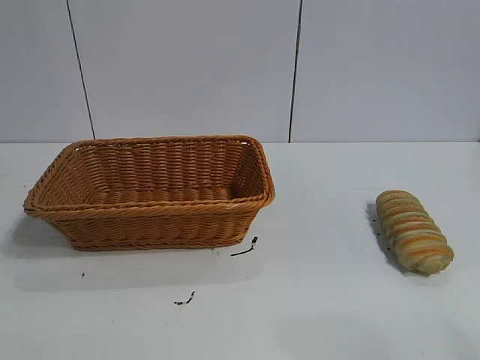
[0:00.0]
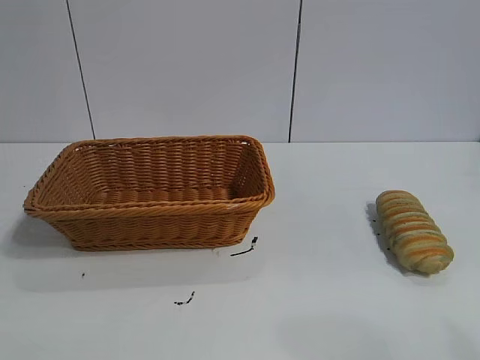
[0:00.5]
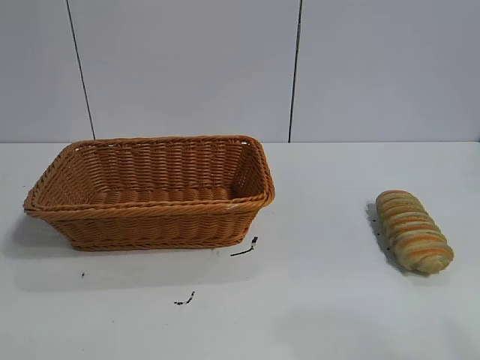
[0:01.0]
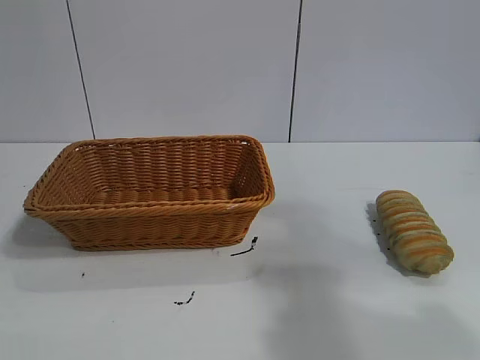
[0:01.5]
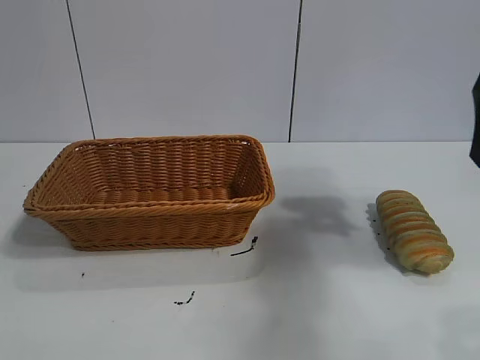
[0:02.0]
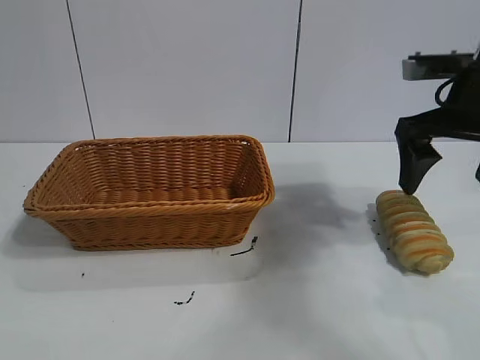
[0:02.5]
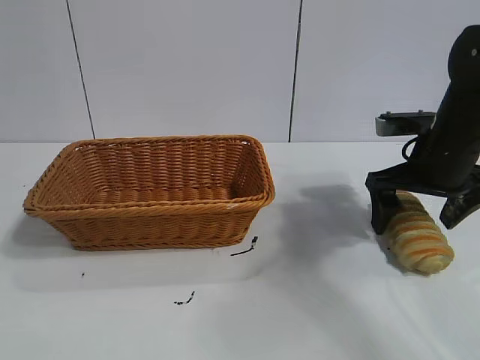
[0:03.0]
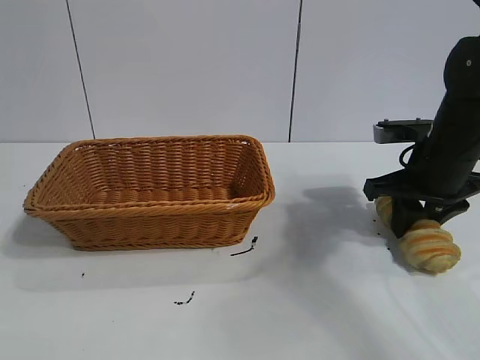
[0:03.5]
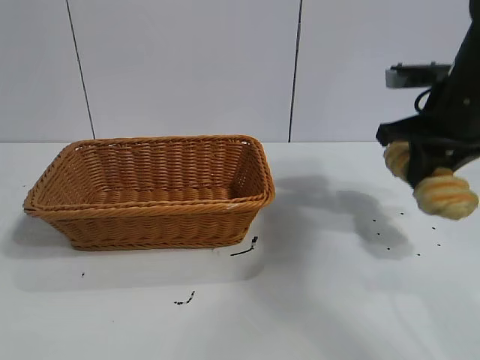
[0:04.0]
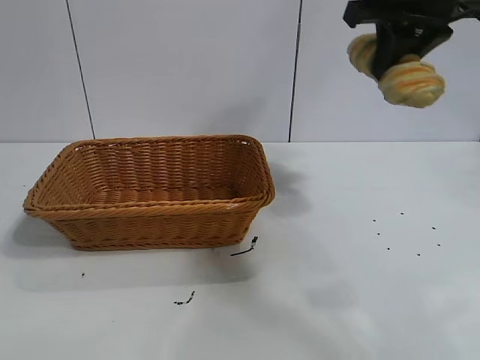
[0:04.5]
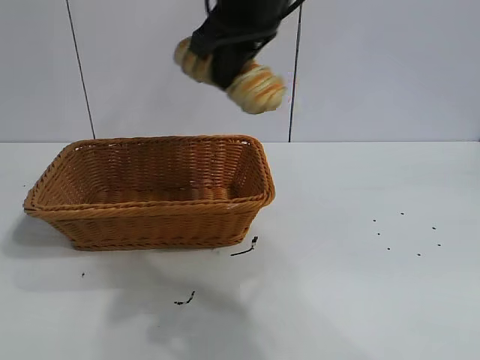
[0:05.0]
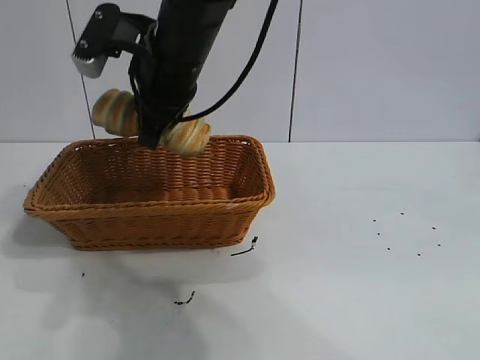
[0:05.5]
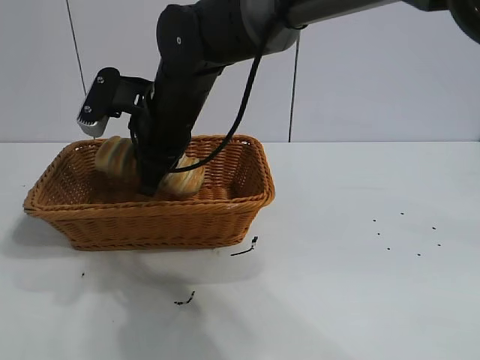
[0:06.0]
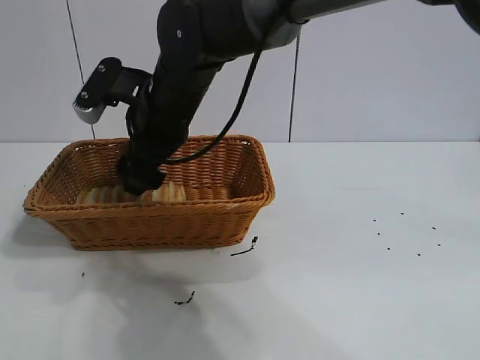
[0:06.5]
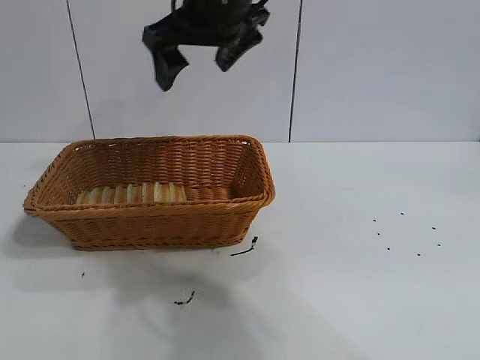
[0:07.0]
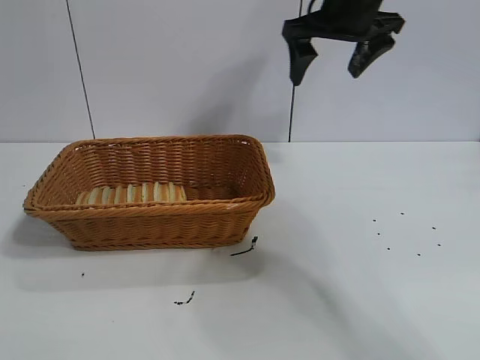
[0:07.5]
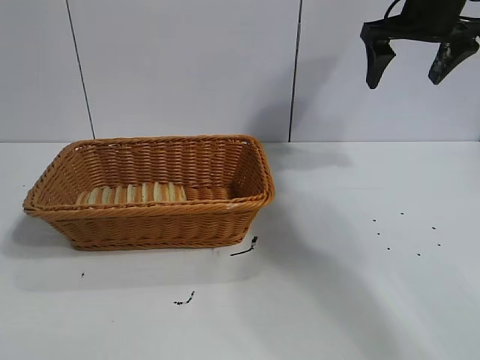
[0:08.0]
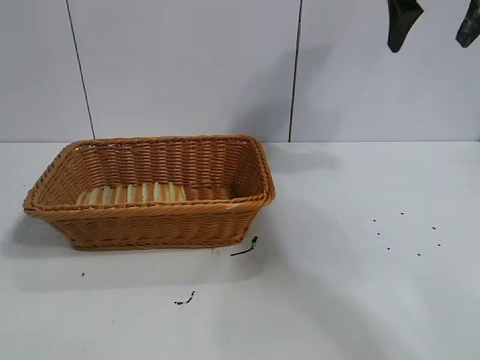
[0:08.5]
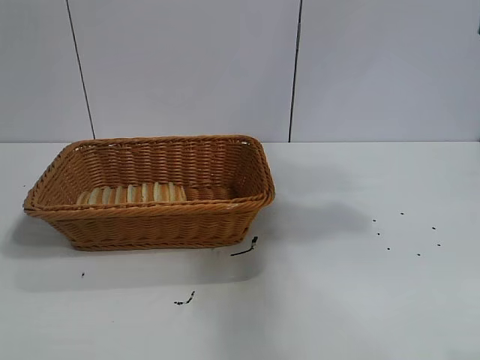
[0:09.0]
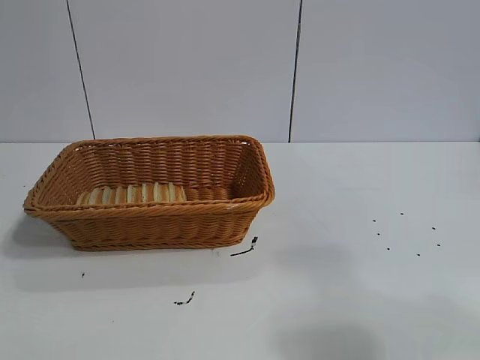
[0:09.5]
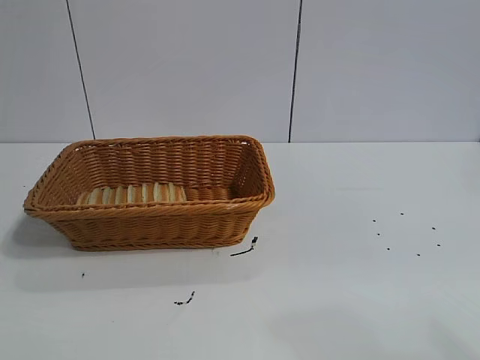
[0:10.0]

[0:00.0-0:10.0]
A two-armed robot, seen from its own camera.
Task of the whole recording: pick up the long bread and put it into the basket.
Step, 0:02.0 to 0:03.5: Grasp the long bread with right gripper.
Step, 0:04.0 to 0:06.5: Place the long bread in the basket with right gripper.

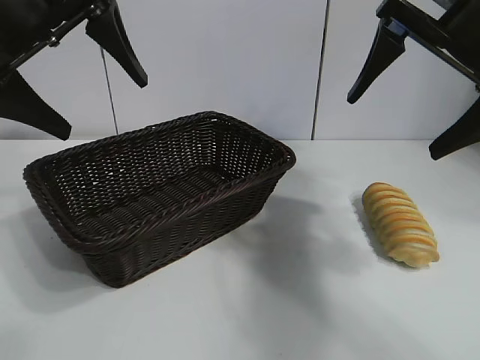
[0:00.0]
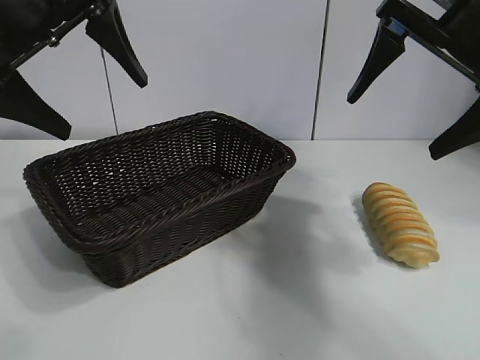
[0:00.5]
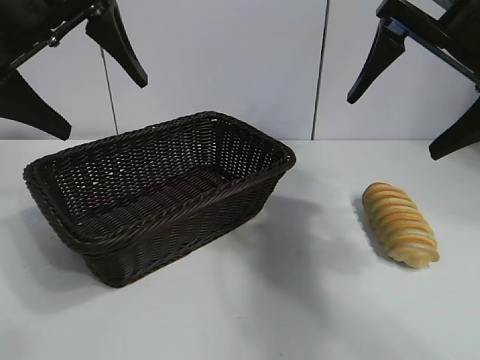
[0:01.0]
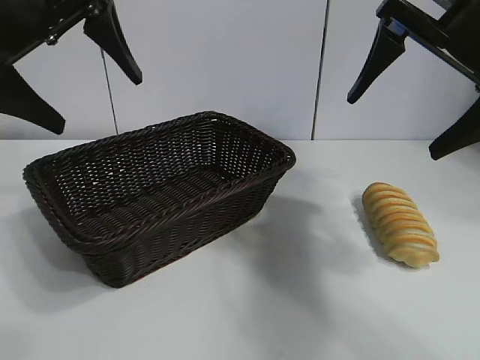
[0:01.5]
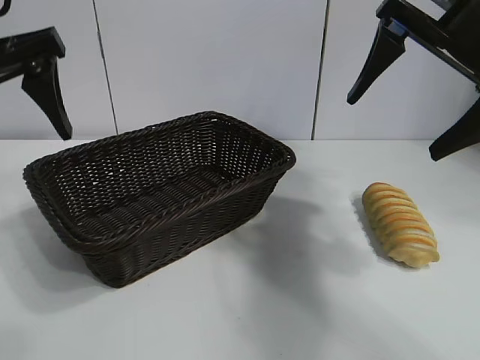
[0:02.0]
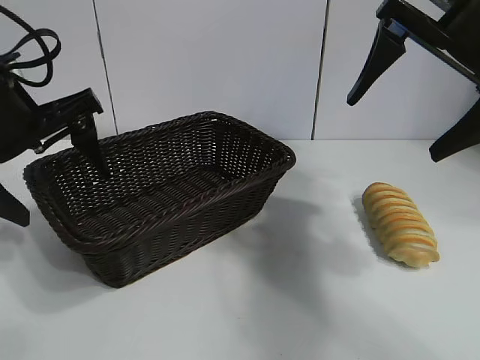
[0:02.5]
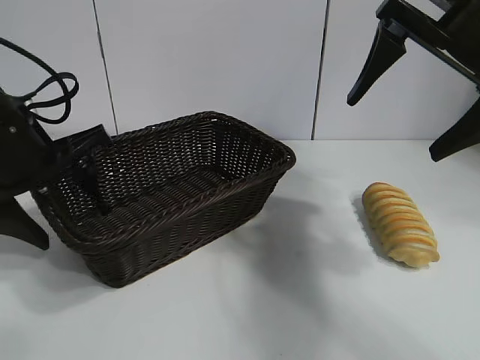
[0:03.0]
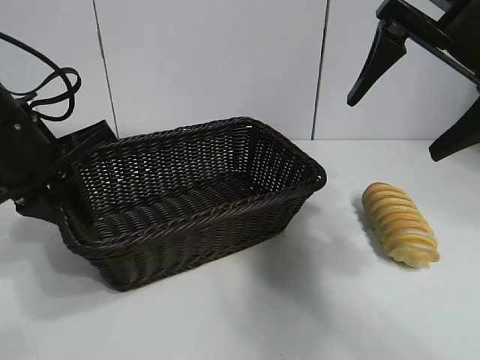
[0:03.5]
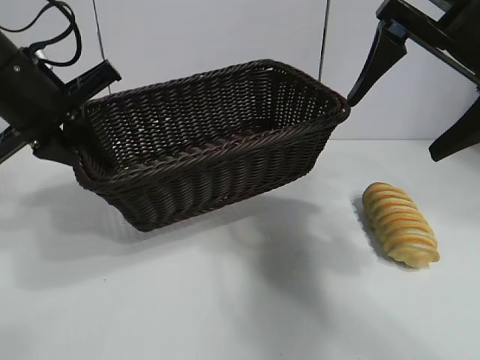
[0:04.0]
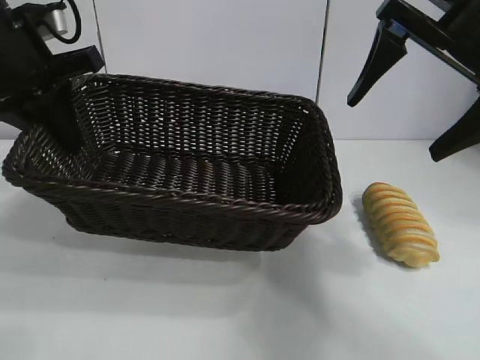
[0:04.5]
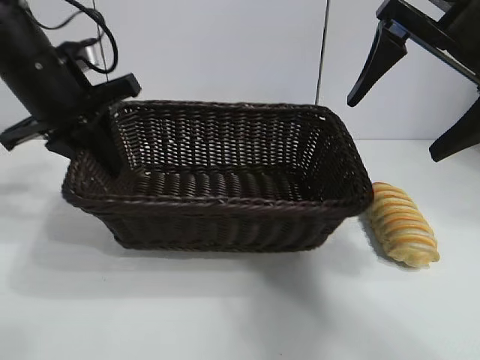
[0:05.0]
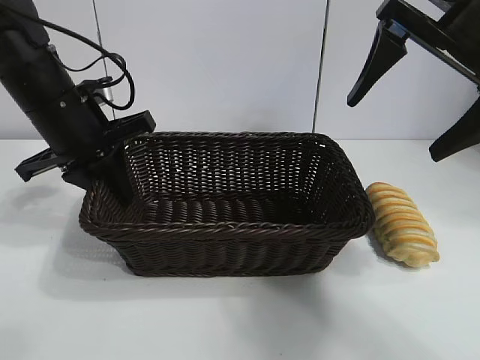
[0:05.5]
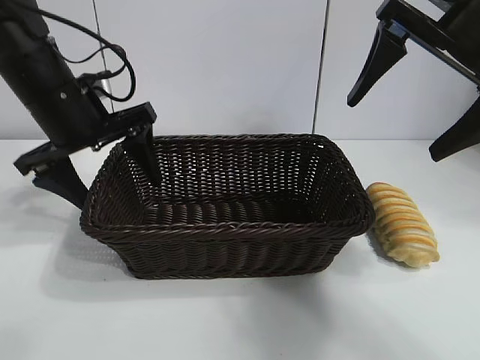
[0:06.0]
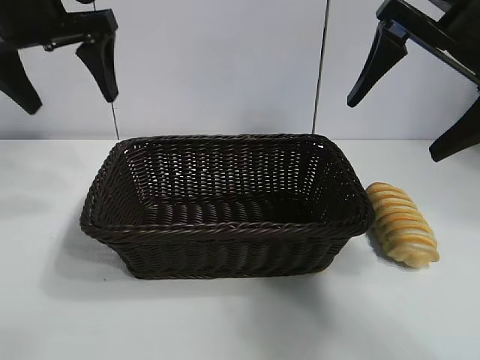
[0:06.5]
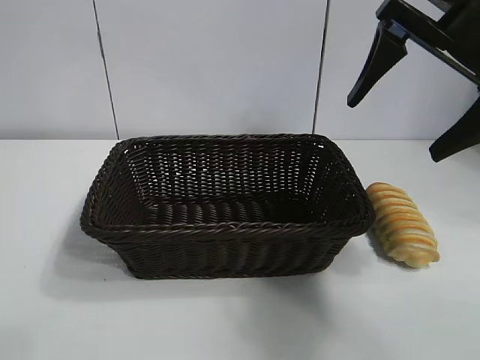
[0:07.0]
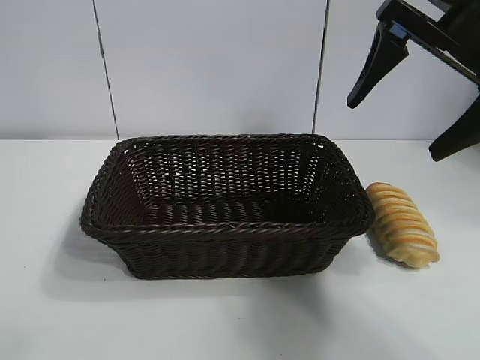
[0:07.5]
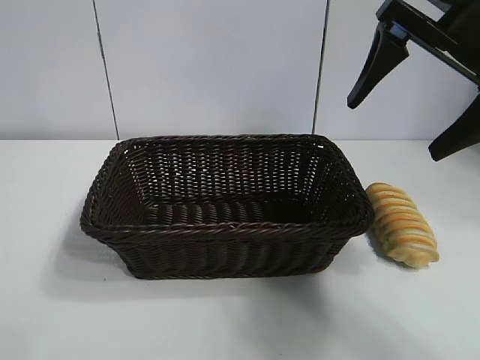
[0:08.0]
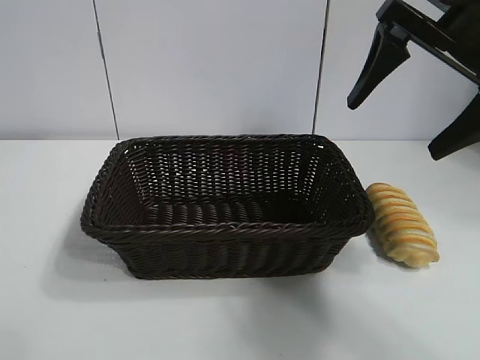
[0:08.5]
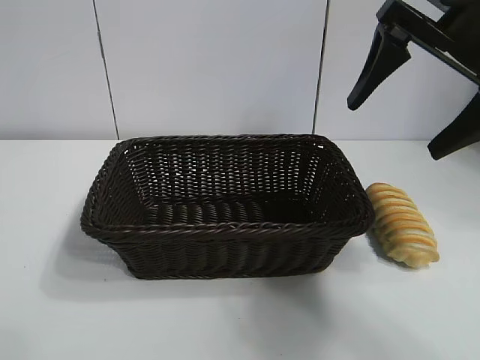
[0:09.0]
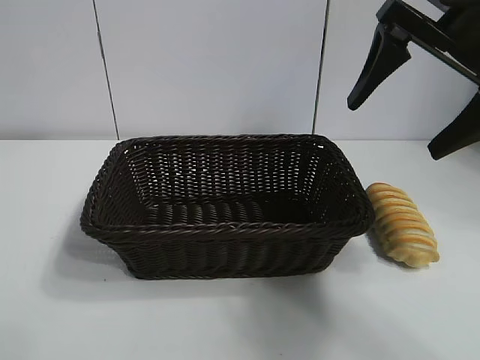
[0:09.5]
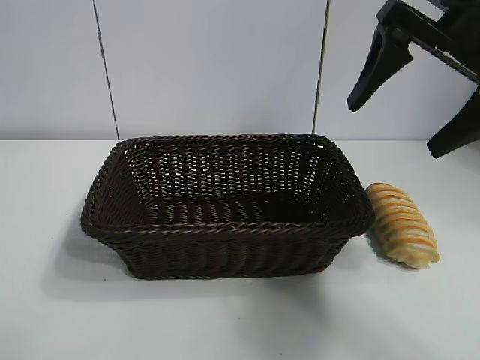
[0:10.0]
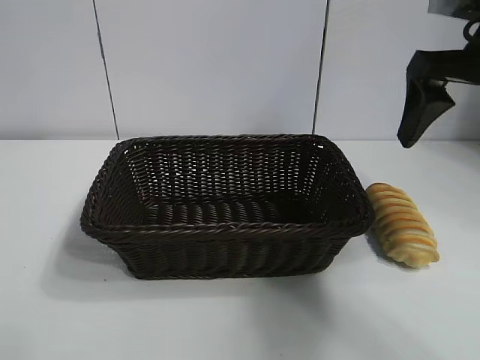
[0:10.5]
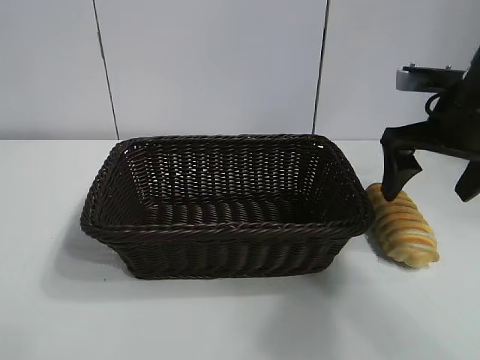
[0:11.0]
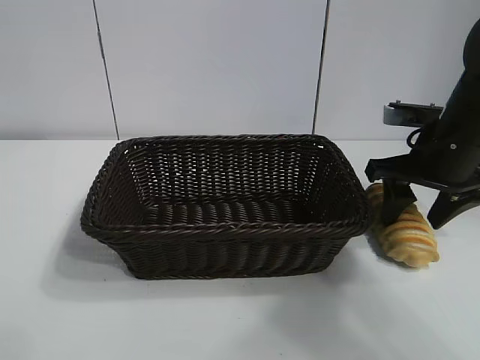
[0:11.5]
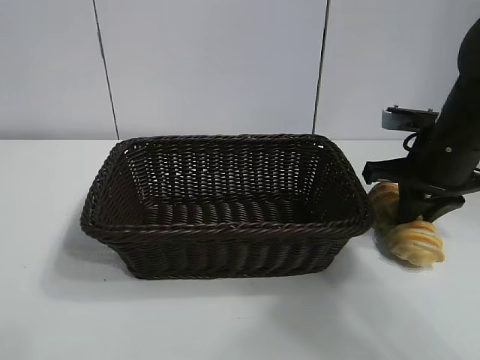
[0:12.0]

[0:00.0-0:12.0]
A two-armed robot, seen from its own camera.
Task of the whole recording: pick up the long bread and put it into the basket.
Step, 0:01.5 to 0:03.0: Grasp the basket with the left gripper.
Step, 0:03.5 to 0:05.5: Place the basket in the center of the table with the left gripper.
Step, 0:06.5 to 0:11.5: Grasp the long bread with right gripper.

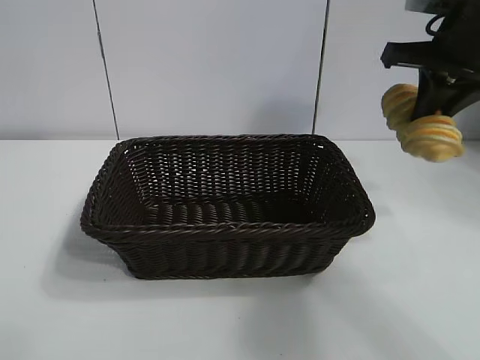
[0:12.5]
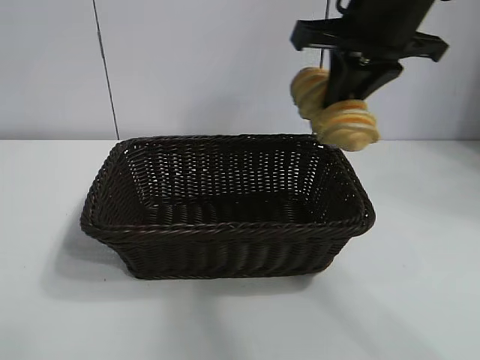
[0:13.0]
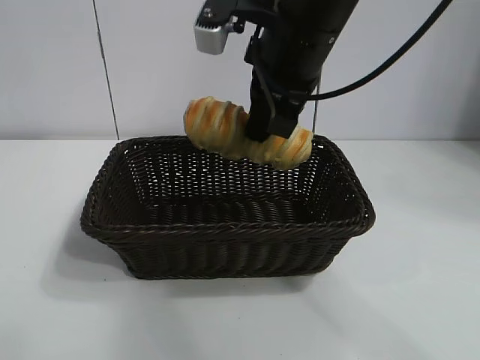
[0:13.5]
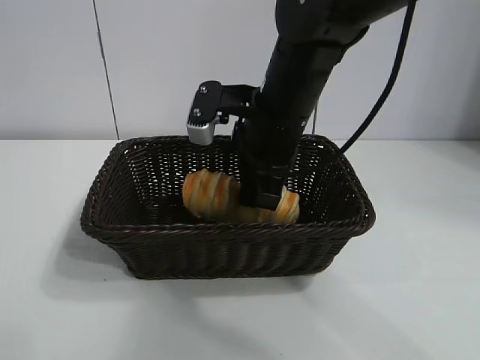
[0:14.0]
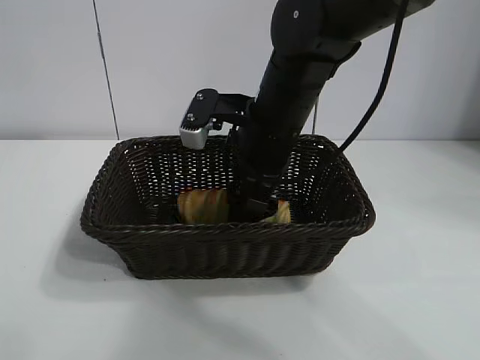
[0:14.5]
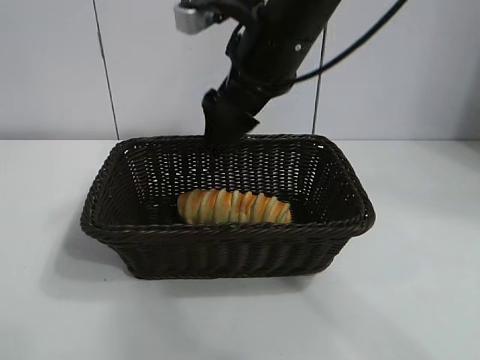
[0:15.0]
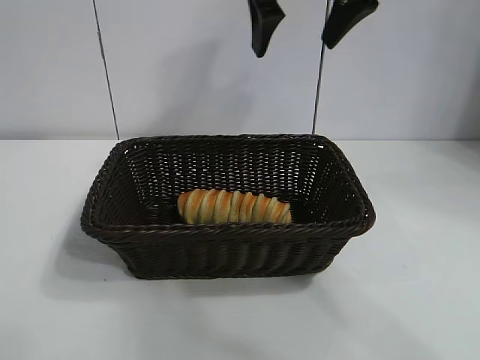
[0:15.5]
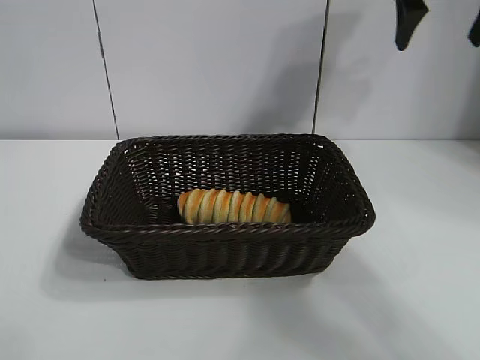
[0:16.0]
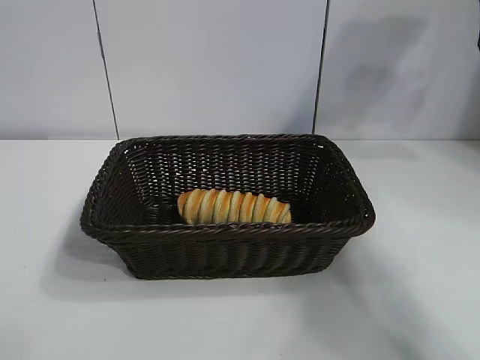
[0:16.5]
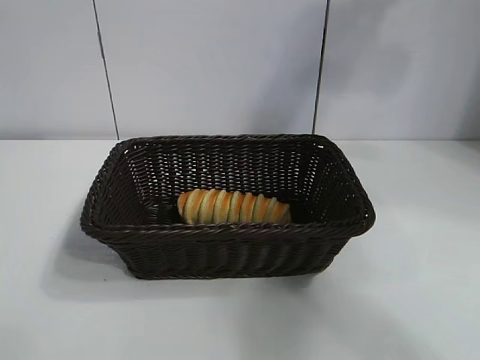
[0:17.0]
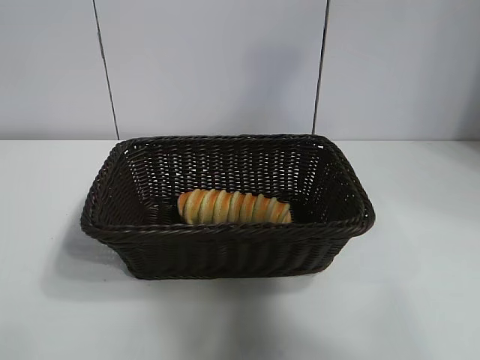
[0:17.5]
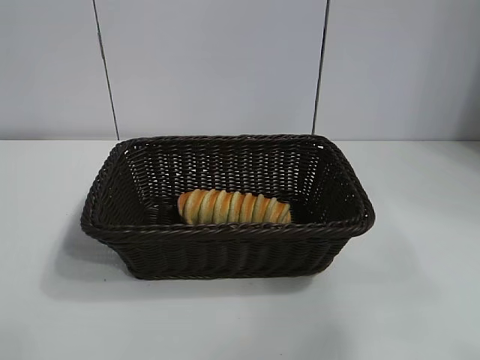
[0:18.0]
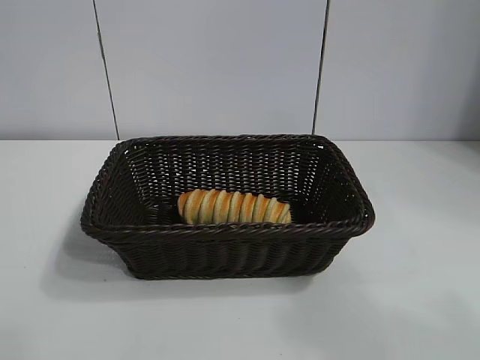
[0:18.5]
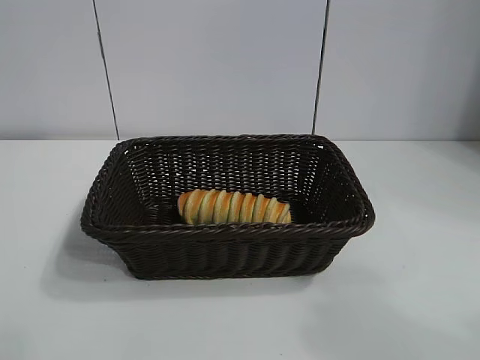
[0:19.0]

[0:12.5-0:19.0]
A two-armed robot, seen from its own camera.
Task of the whole recording: pick up the long bread and put it into the basket.
Step, 0:12.5 to 0:14.5: Place the long bread in the basket with right gripper.
